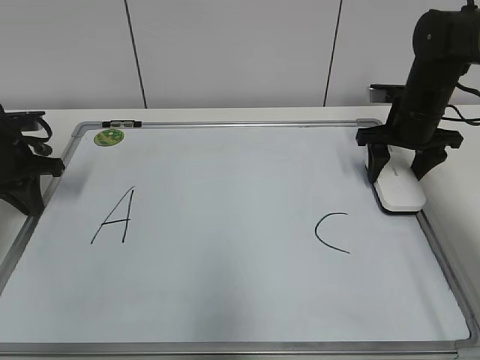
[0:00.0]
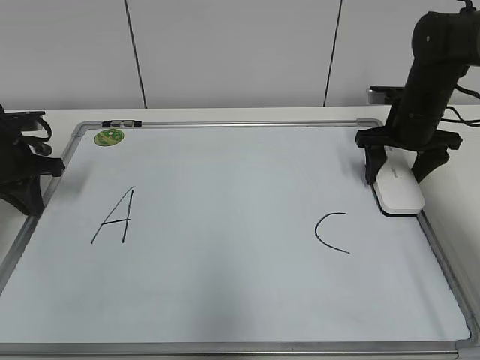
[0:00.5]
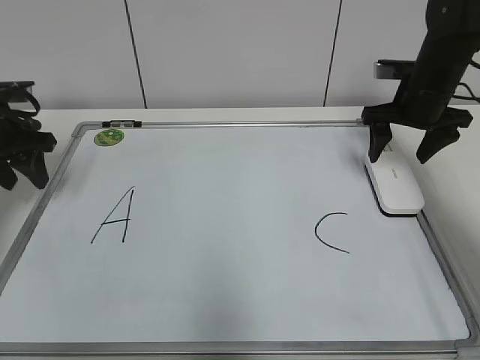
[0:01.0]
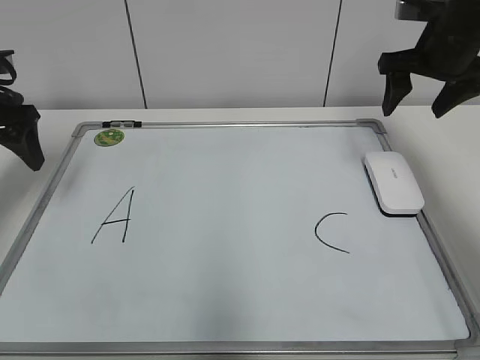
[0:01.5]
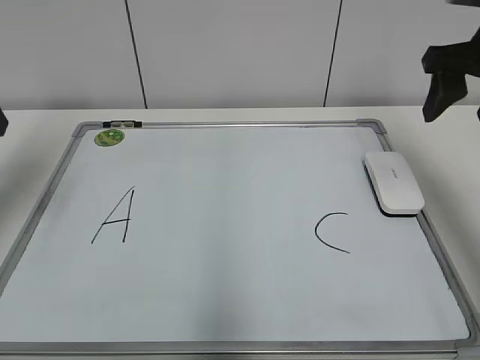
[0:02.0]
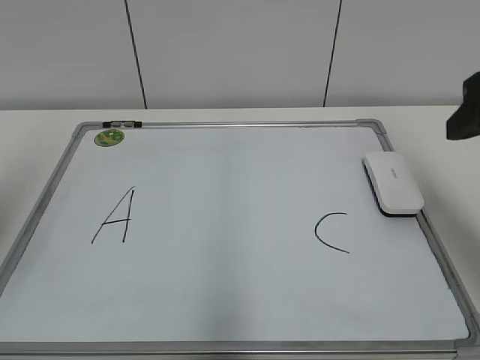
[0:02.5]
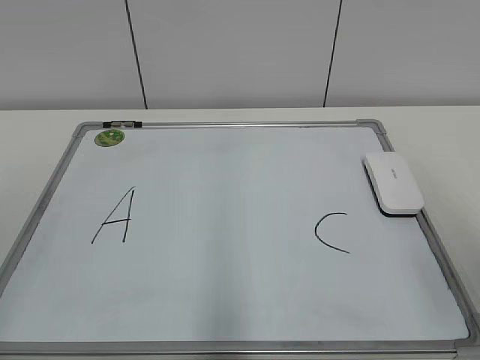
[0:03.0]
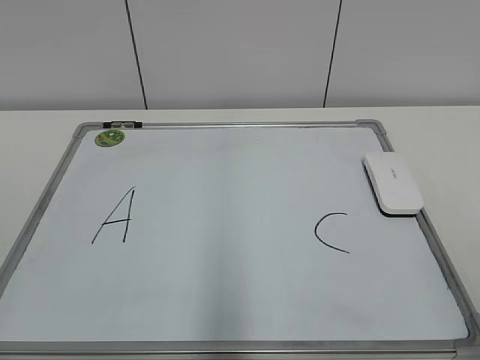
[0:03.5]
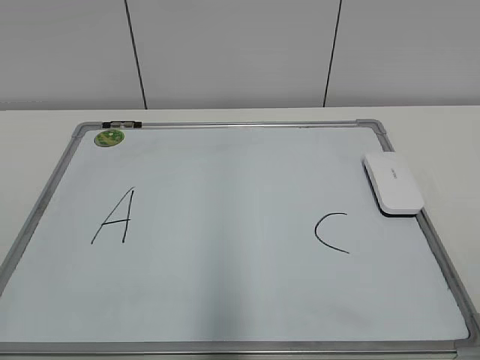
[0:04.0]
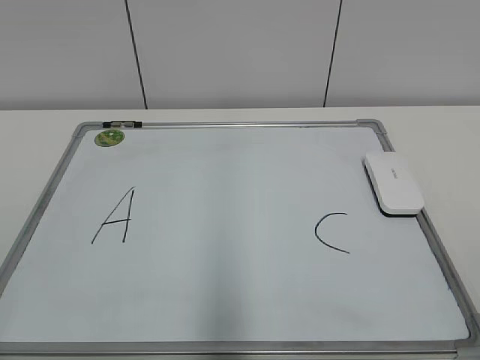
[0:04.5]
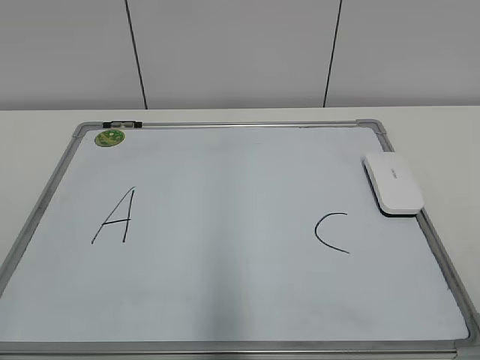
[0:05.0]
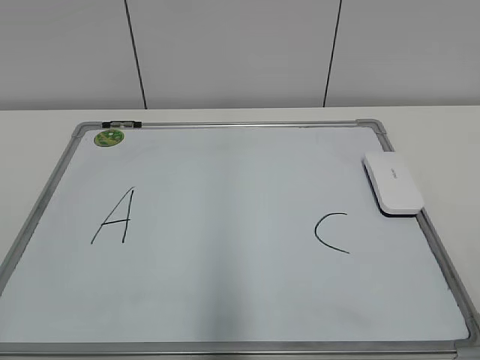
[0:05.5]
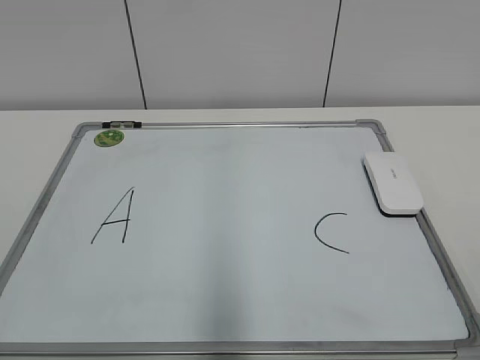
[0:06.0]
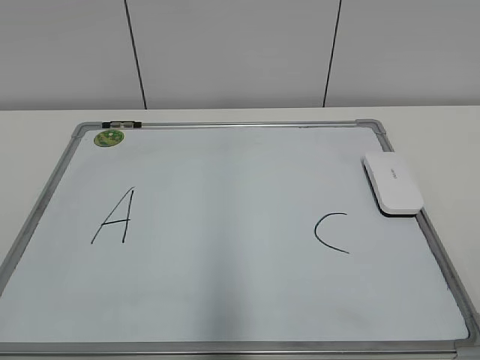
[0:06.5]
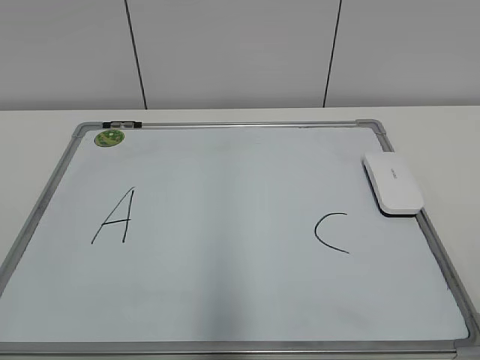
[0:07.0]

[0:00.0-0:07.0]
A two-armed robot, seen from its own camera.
Task of the whole recording: pick up the eraser on the blackboard and erase the letter "B".
0:00.0 to 0:02.0: The grippers both shift upward and backward by roughly 20 cm. The left gripper opens, while the right gripper opens, then closes again.
0:02.0 to 0:03.5: Both grippers move backward, approximately 30 cm.

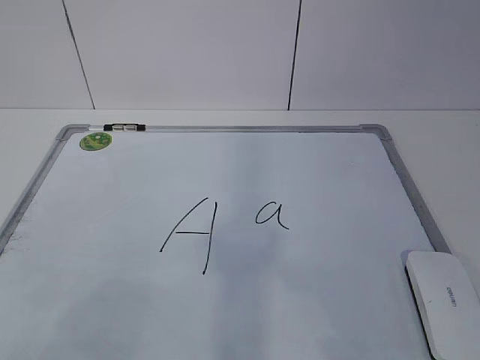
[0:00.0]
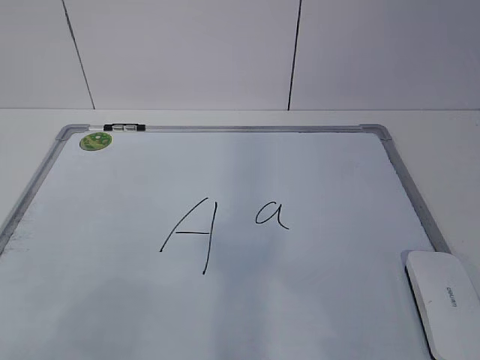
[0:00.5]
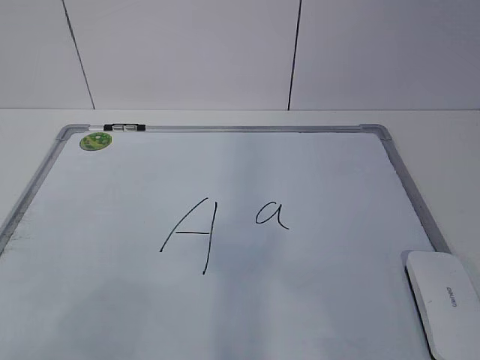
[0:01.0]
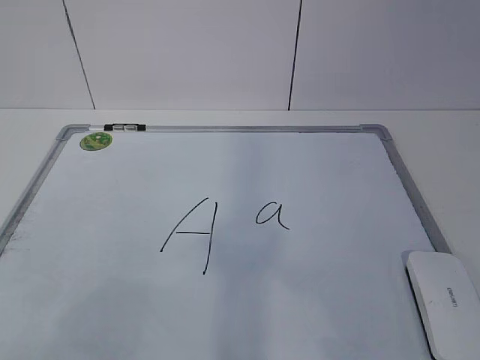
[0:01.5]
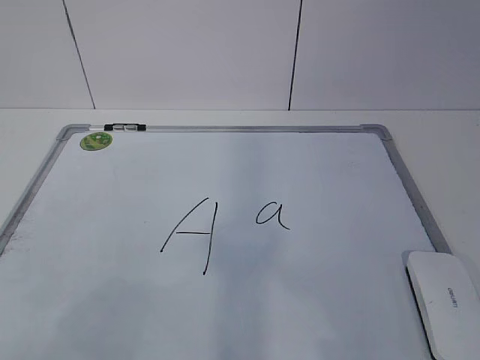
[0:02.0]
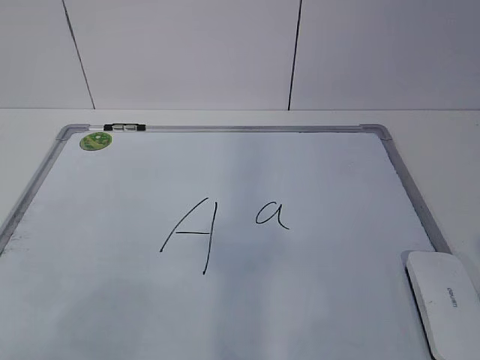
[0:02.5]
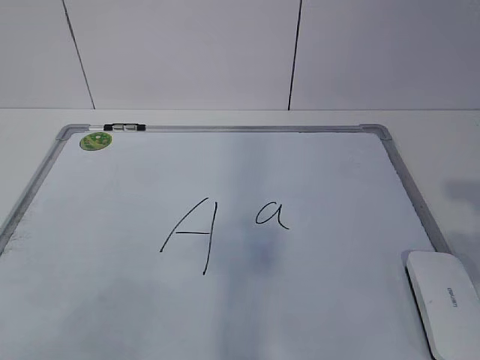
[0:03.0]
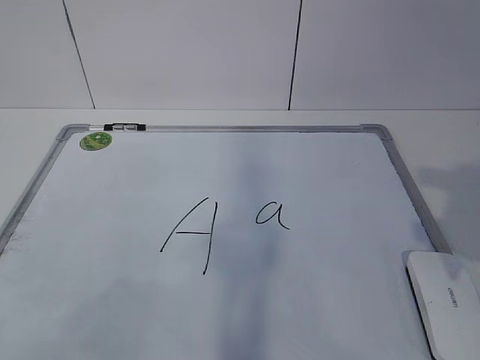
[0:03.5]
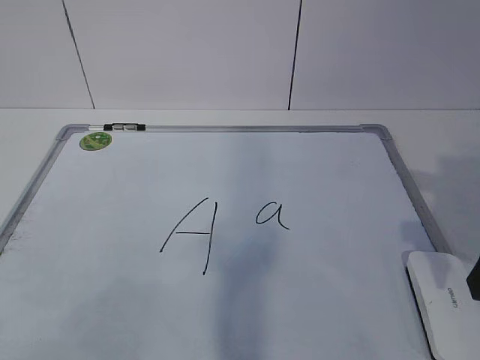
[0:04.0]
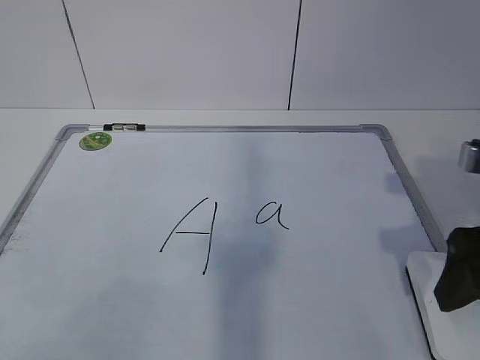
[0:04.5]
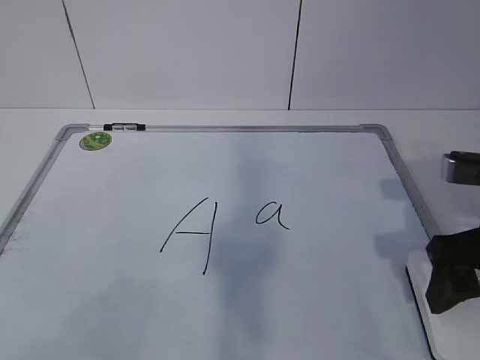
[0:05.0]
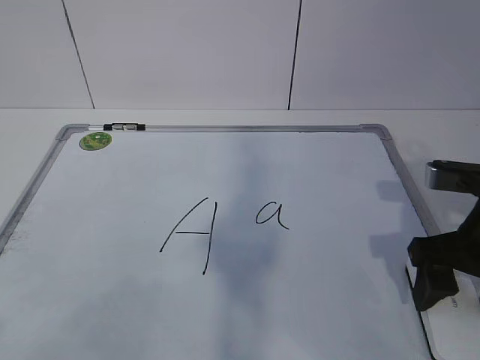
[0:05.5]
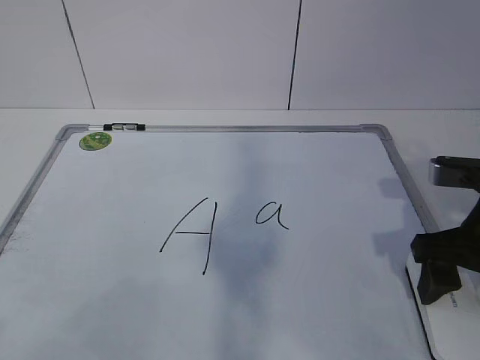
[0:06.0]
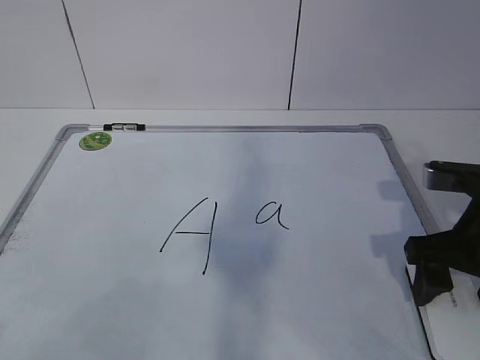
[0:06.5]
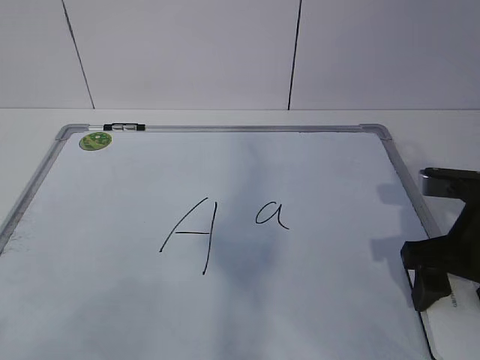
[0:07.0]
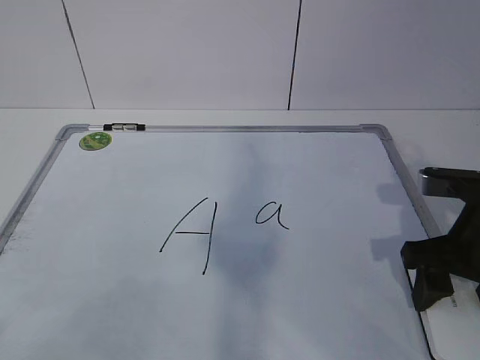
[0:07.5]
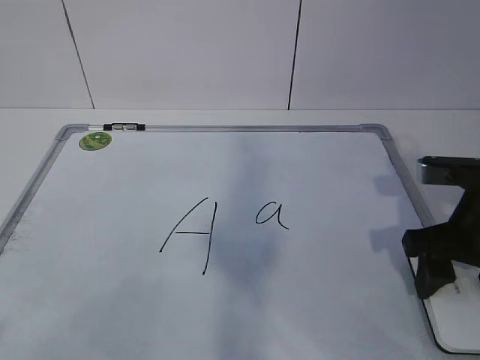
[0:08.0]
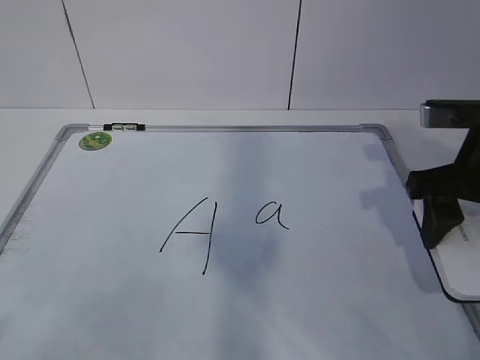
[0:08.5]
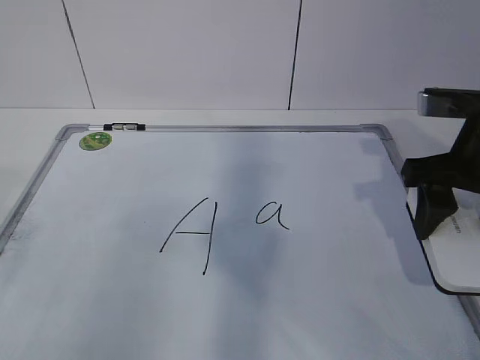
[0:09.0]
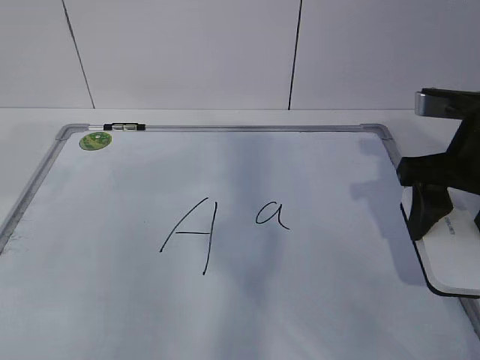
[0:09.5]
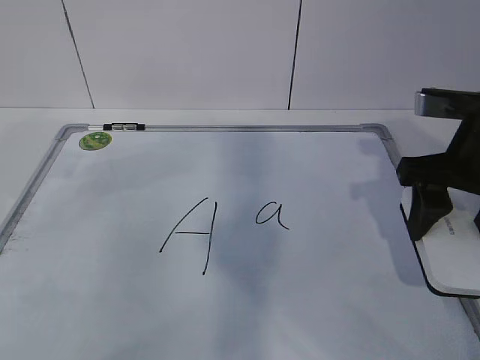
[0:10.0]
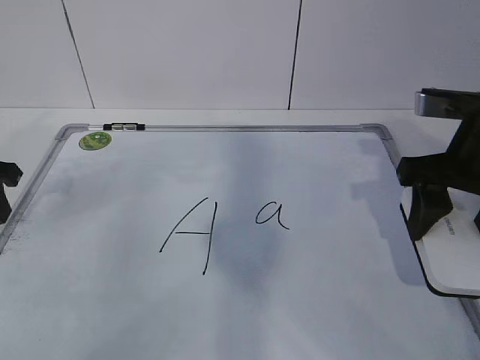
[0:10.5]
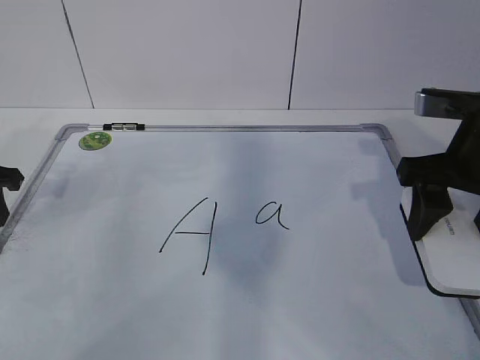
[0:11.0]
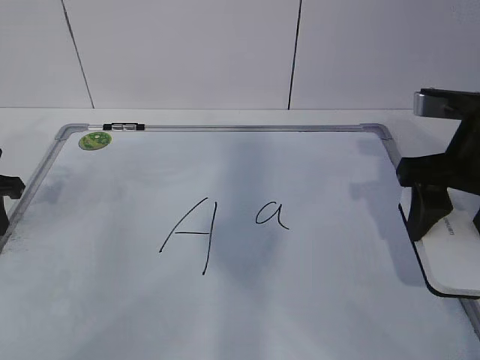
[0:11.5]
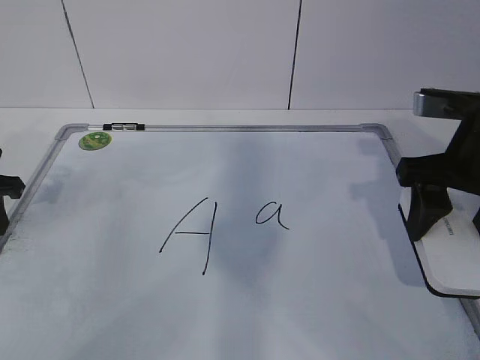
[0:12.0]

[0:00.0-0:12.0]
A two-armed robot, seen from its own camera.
Task of the whole recording: pick up the eraser on the blackboard and erase the letter "a".
Step, 0:00.0 to 0:06.0: Grab the eraser with your right hand.
Step, 0:07.0 to 0:10.5: Hold the drawing board steady with your left hand.
0:02.0 to 0:04.0: The right gripper heads forward, covering about 20 cm, and opens up.
0:04.0 to 0:06.0: The right gripper heads downward, covering approximately 5 cm.
0:06.0 to 0:08.0: The right gripper closes its fingers.
0:08.0 to 0:10.0: The right gripper shifts about 5 cm upward.
0:10.0 to 0:12.0: The left gripper travels downward by approximately 10 cm.

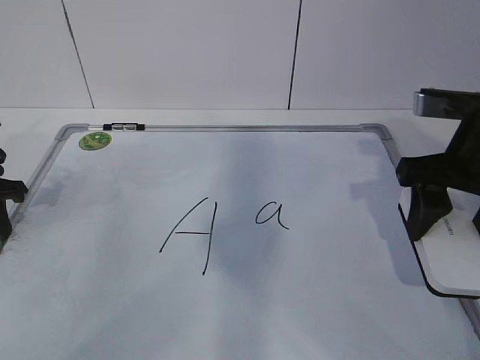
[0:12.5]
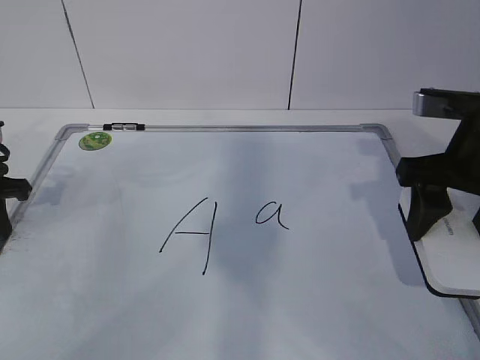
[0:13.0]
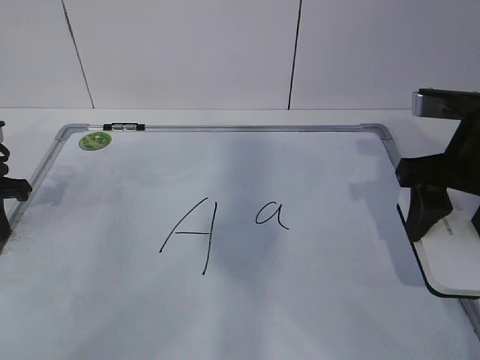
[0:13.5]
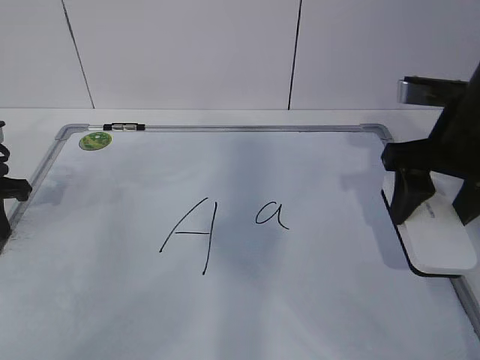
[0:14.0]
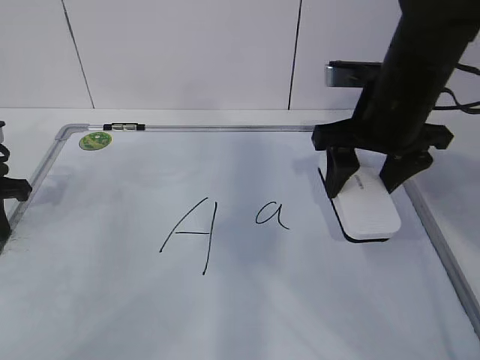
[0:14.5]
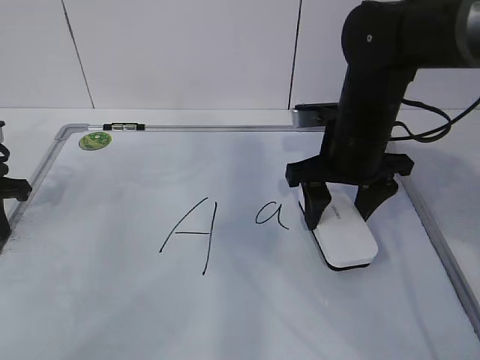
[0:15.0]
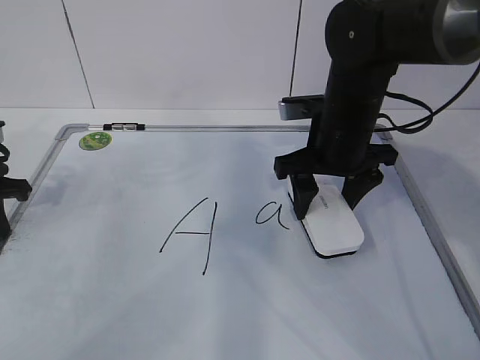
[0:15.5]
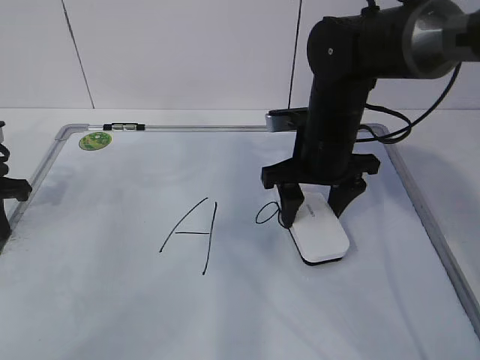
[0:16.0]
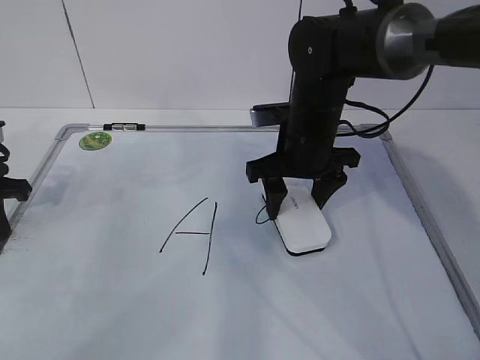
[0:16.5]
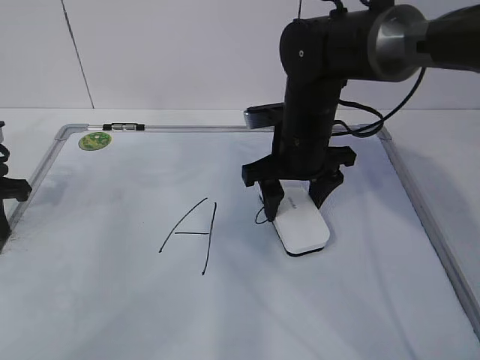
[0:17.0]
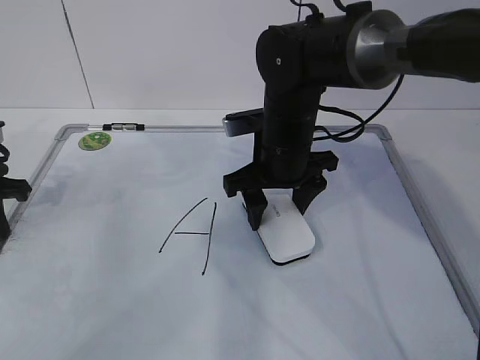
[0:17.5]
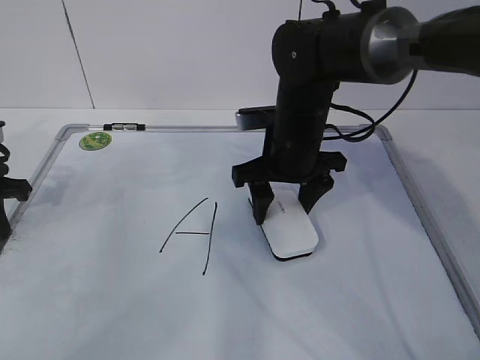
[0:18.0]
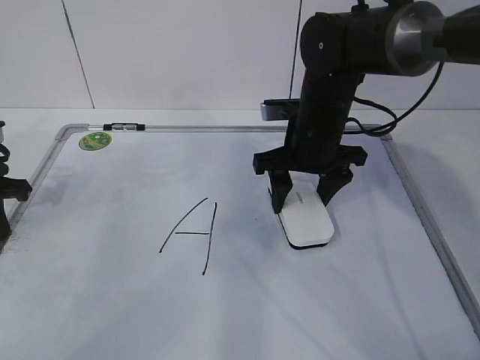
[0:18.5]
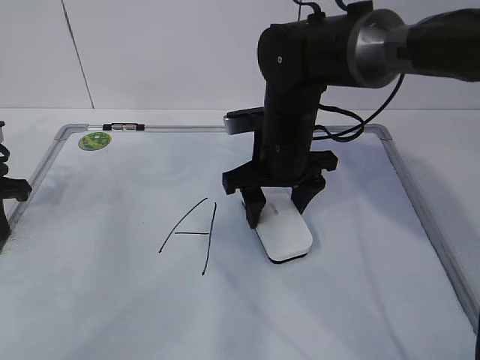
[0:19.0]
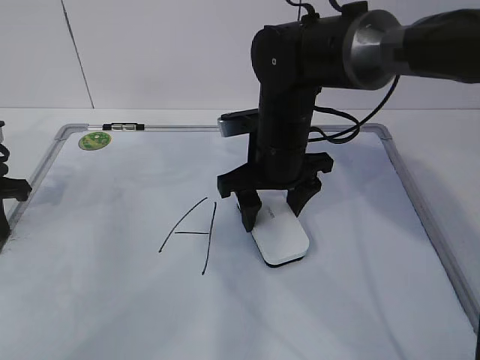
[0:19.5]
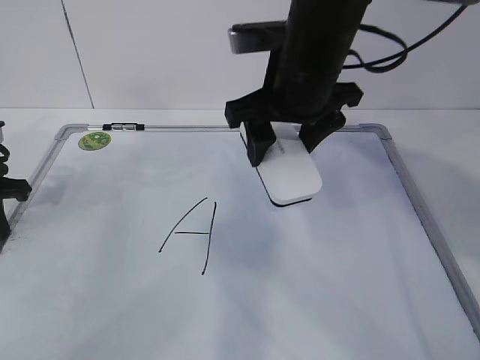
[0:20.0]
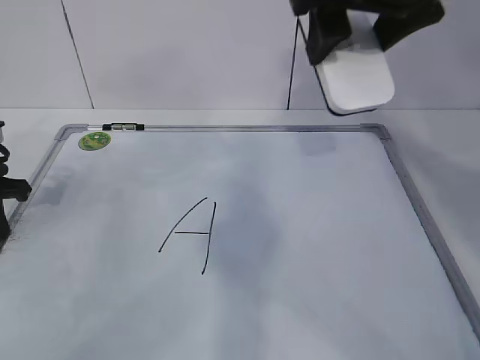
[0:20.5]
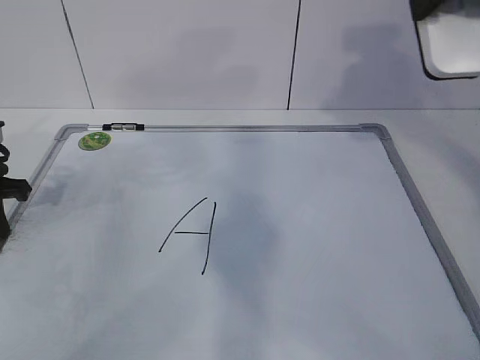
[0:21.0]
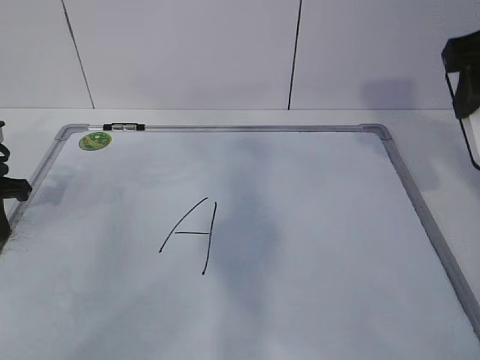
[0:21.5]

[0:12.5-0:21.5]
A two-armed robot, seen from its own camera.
Task of the whole recording: pick up the eraser on the blackboard and erase the letter "a".
Step, 0:12.5 to 0:16.0: Erase the letter a with your right hand.
Step, 0:16.5 to 0:20.5: Put down the eraser with your right hand.
0:12.5 to 0:14.5: The right gripper heads forward and to the left, covering about 10 cm.
0:14.5 to 0:17.0: The right gripper travels to the left and downward by about 10 cm.
0:17.0 to 0:19.5: The grippers stay close to where they were, moving slightly.
0:19.5 to 0:21.5: The right gripper moves to the right, upward and backward, some 25 cm.
